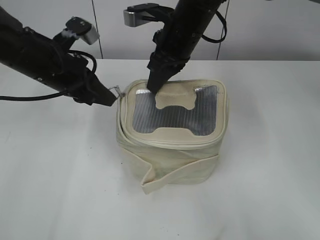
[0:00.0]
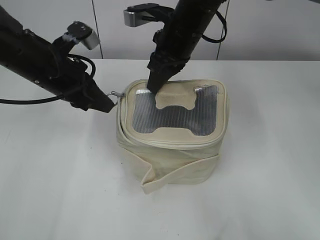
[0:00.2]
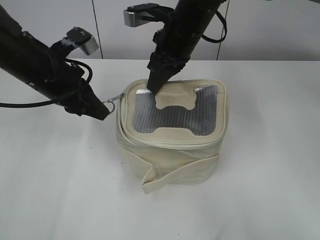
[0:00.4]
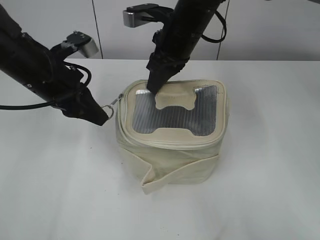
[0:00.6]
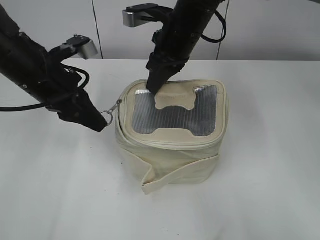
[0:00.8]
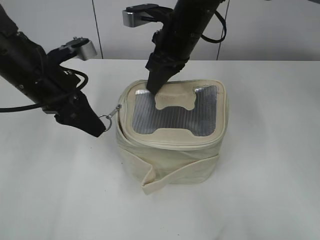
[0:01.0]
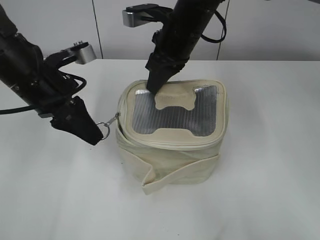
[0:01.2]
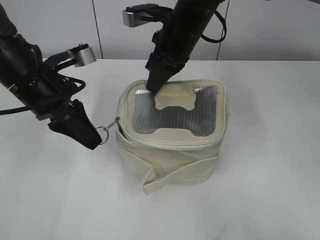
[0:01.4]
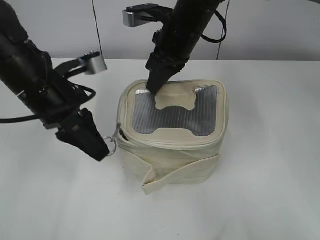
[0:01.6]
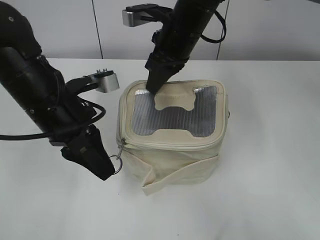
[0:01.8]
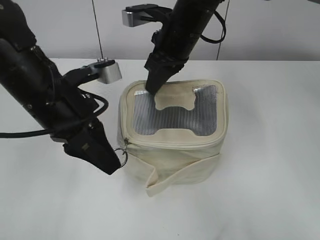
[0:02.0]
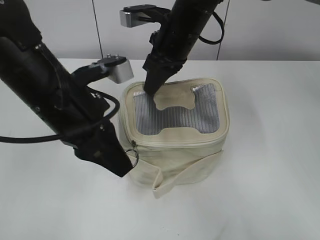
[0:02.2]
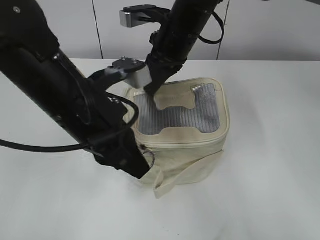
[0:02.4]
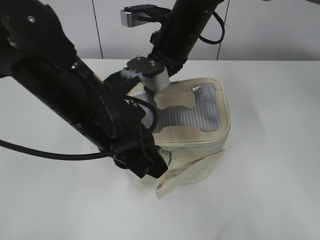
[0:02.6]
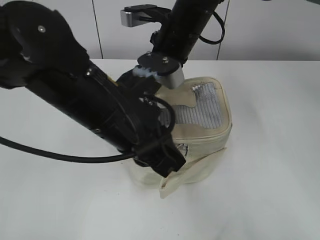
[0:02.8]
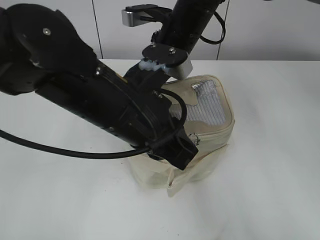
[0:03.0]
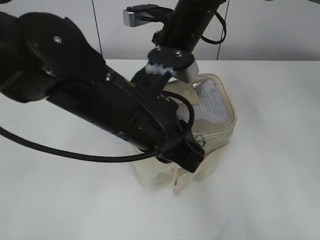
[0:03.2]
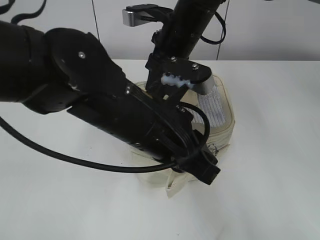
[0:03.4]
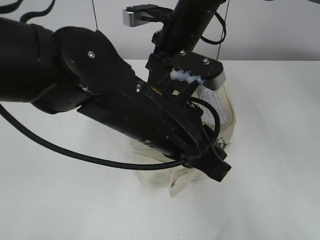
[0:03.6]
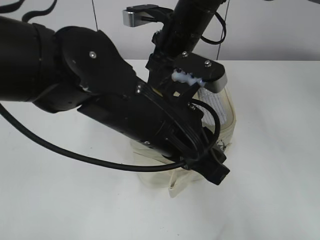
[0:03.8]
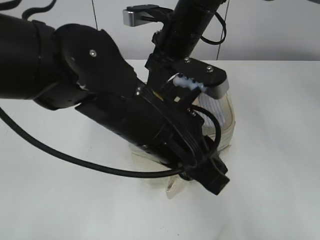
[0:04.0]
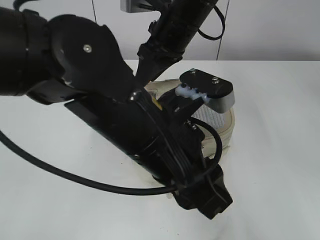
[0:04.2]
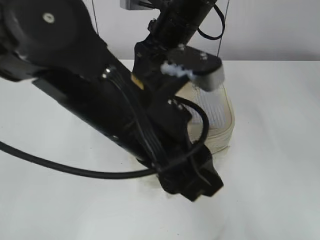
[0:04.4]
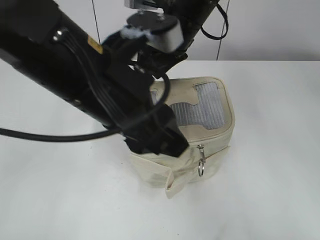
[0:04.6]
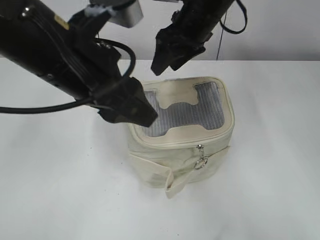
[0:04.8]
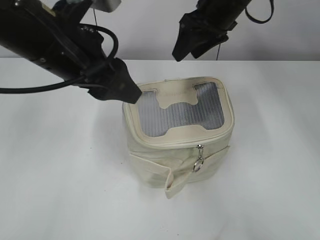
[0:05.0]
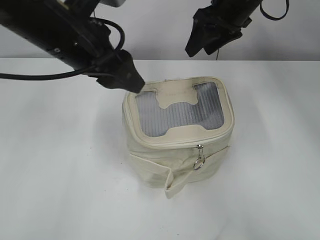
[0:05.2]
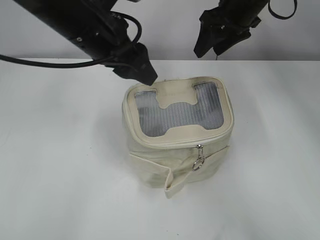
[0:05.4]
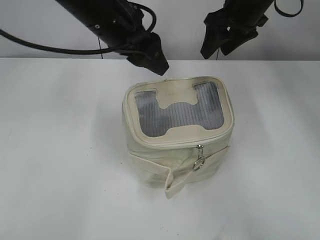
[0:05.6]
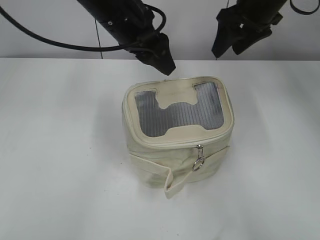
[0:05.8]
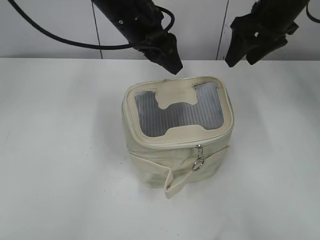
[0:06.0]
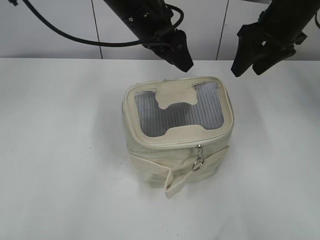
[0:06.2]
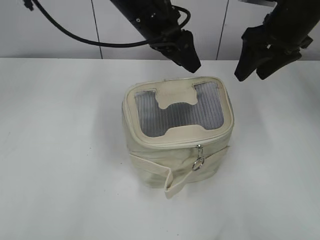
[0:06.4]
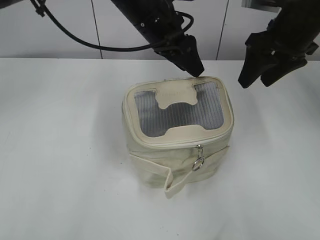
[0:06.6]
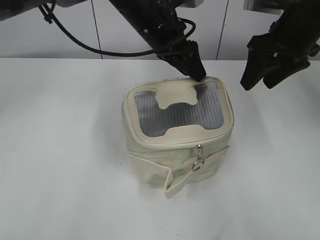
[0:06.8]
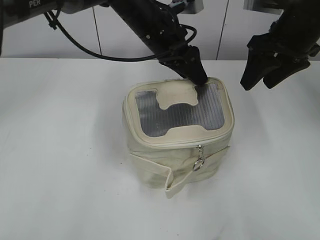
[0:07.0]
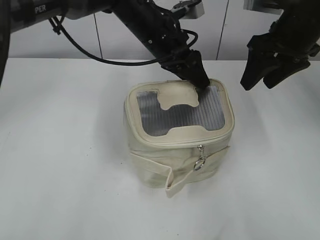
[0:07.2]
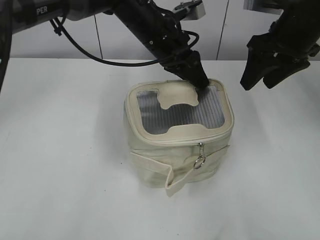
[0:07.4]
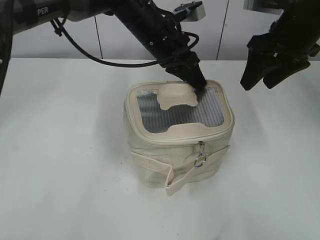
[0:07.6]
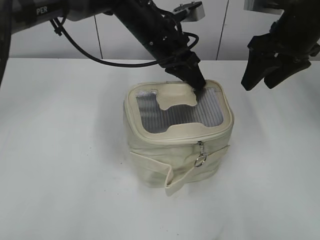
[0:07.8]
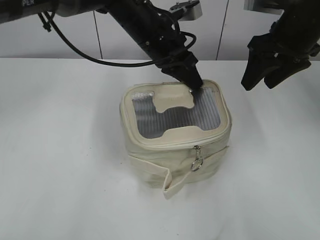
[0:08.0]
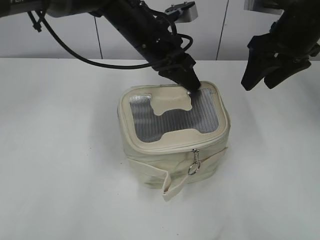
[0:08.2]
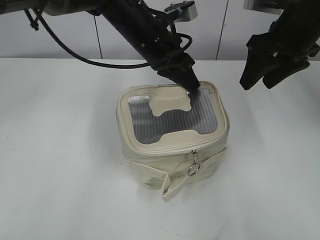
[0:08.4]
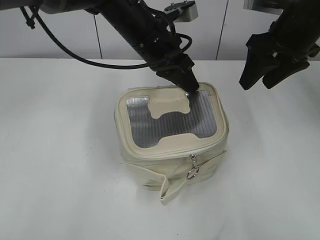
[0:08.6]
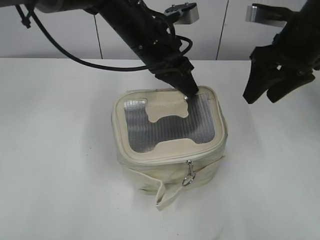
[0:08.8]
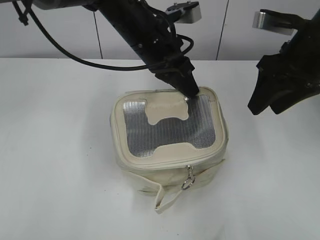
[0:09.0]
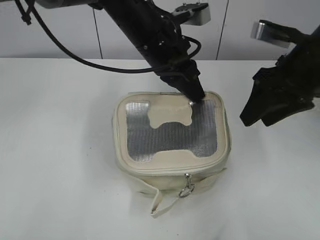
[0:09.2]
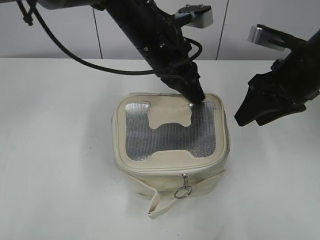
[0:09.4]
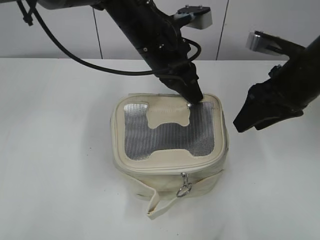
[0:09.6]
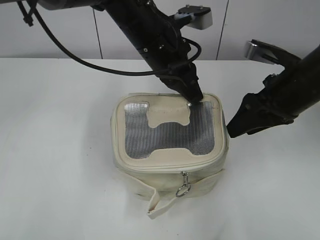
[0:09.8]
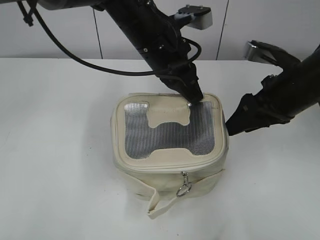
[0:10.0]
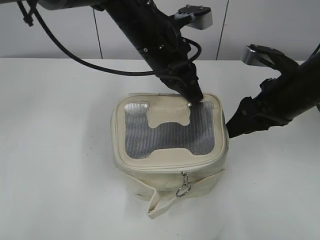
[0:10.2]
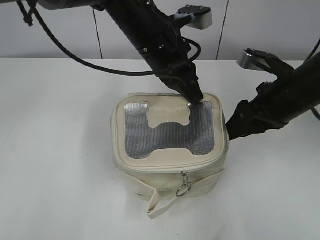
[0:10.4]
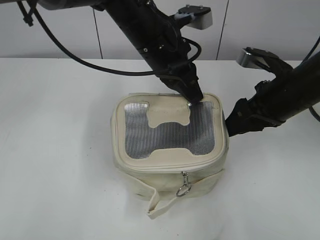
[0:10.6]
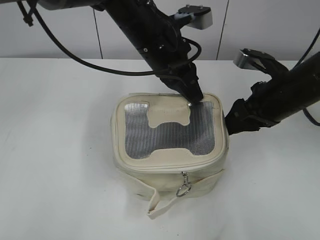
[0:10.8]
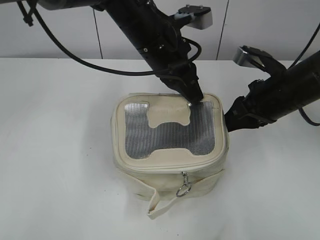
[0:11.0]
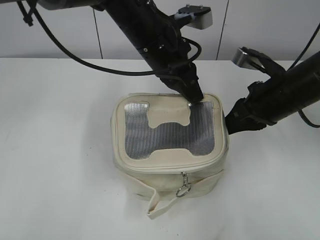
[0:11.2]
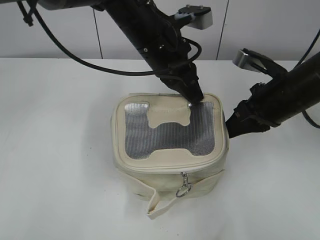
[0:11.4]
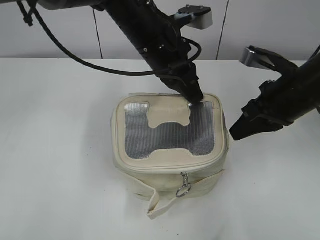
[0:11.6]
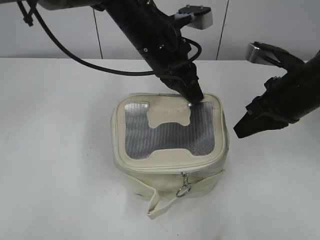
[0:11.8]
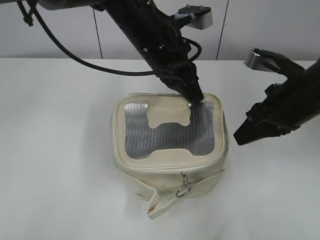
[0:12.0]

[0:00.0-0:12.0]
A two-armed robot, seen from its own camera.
Step, 0:00.0 to 0:04.0: Zip up the bag with your left hand.
0:00.0 to 0:01.6: The left gripper travels backward by some 5 cm.
0:01.6 to 0:03.0: The left gripper travels to the right and backward by some 15 cm.
0:03.0 to 0:04.4: The left gripper opens its fingers. Meanwhile the right gripper opens up.
0:04.4 to 0:06.0: The left gripper is displaced forward by roughly 20 cm; the right gripper shifts some 15 cm to the right.
0:06.0 to 0:07.6: The left gripper travels downward by some 5 cm, and closes up.
0:07.6 to 0:09.0: The left gripper ends up approximately 5 cm from where it was. Meanwhile the right gripper moves approximately 5 cm.
0:09.0 to 0:10.4: The right gripper goes some 5 cm downward.
0:10.4 to 0:12.0: The right gripper closes.

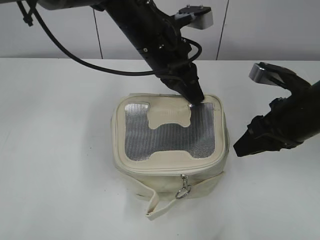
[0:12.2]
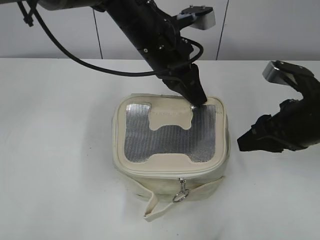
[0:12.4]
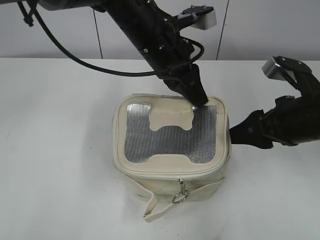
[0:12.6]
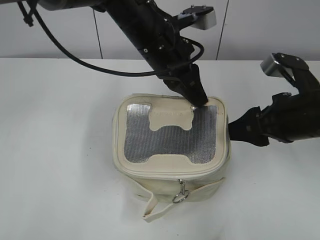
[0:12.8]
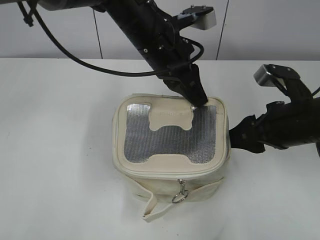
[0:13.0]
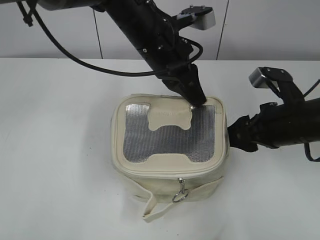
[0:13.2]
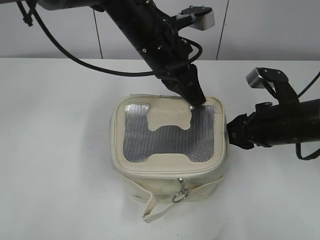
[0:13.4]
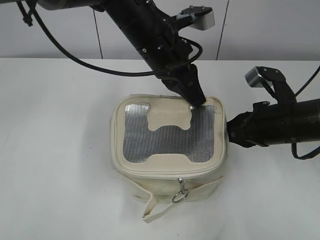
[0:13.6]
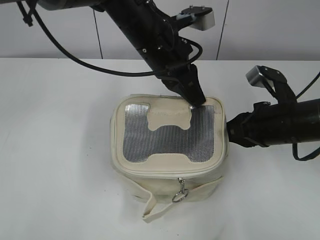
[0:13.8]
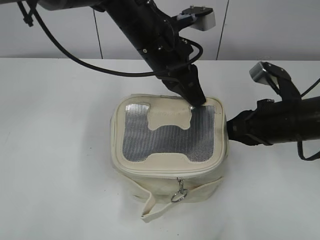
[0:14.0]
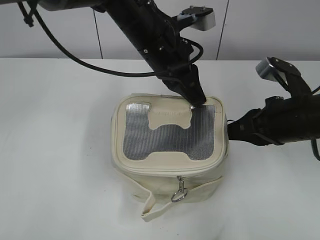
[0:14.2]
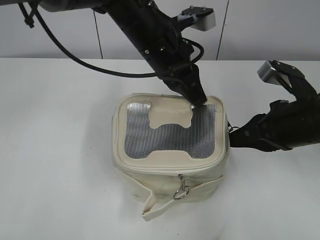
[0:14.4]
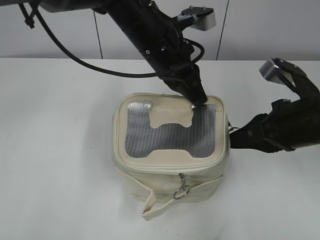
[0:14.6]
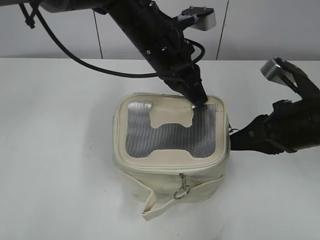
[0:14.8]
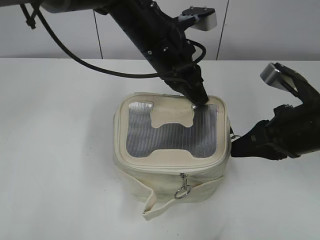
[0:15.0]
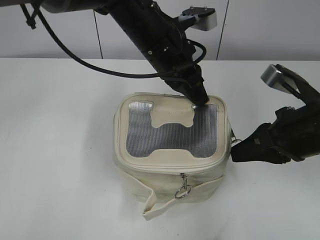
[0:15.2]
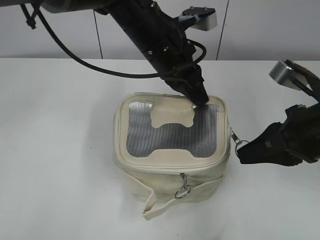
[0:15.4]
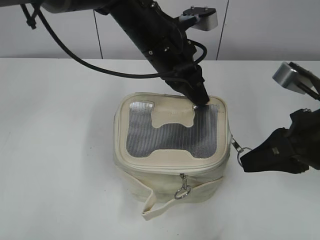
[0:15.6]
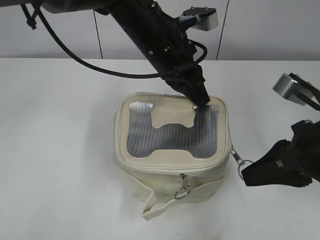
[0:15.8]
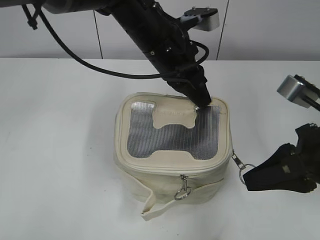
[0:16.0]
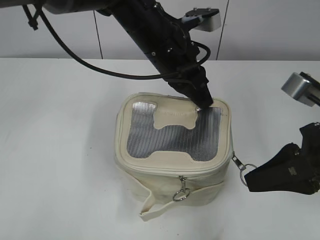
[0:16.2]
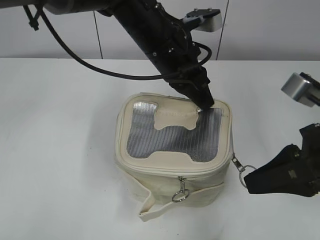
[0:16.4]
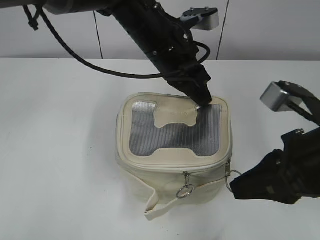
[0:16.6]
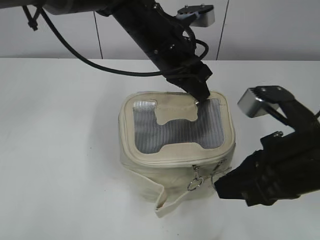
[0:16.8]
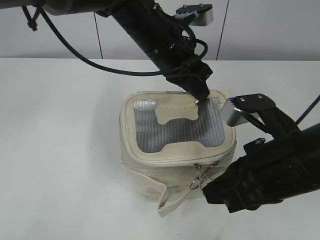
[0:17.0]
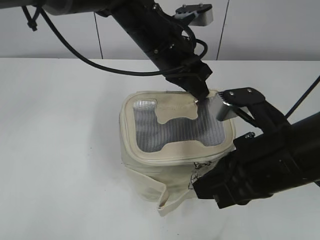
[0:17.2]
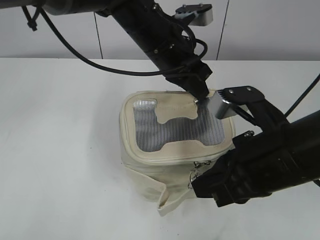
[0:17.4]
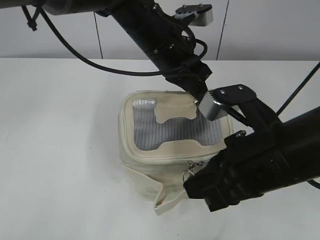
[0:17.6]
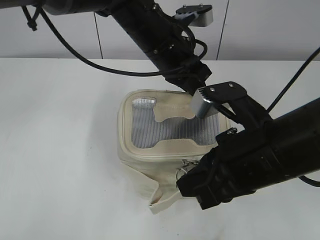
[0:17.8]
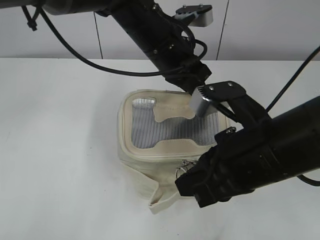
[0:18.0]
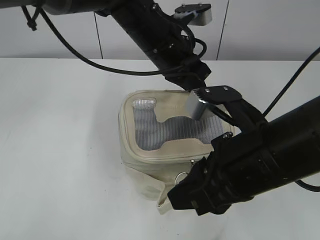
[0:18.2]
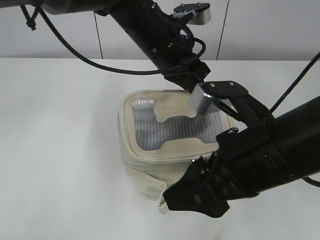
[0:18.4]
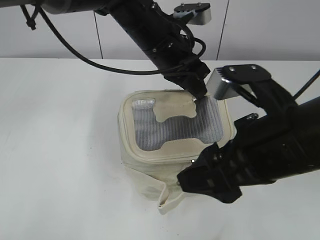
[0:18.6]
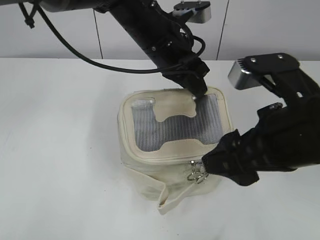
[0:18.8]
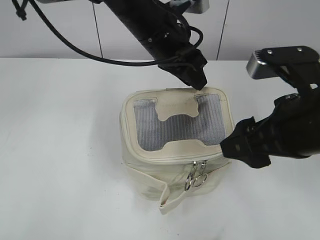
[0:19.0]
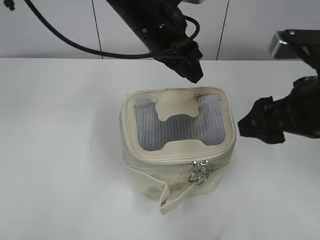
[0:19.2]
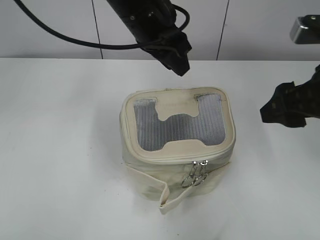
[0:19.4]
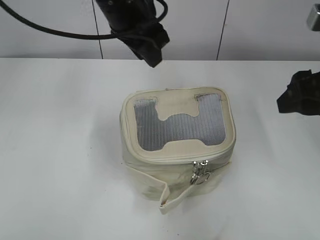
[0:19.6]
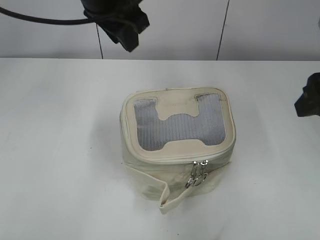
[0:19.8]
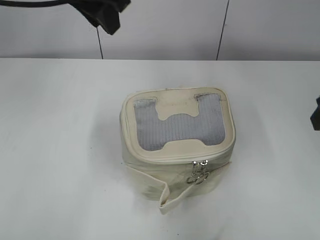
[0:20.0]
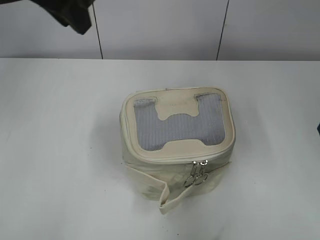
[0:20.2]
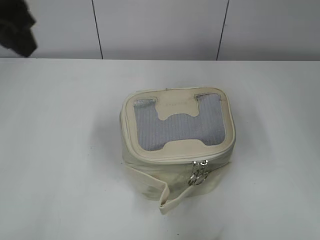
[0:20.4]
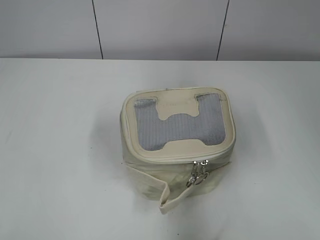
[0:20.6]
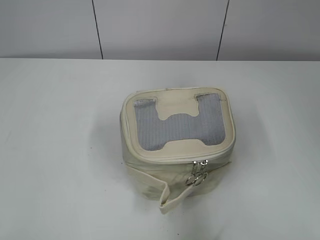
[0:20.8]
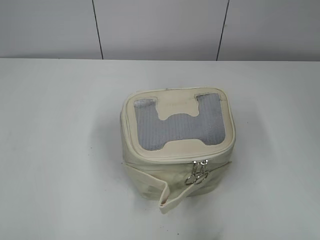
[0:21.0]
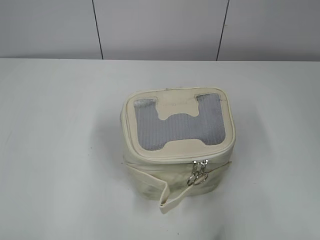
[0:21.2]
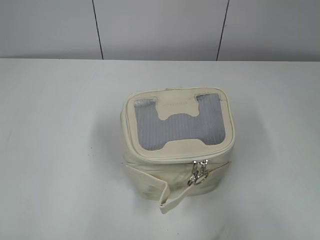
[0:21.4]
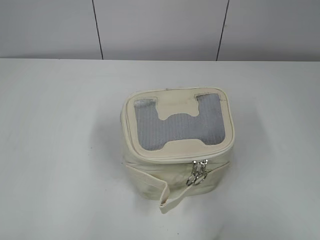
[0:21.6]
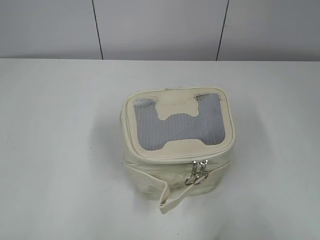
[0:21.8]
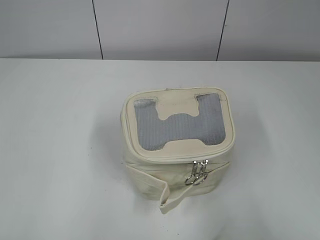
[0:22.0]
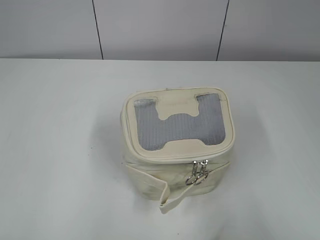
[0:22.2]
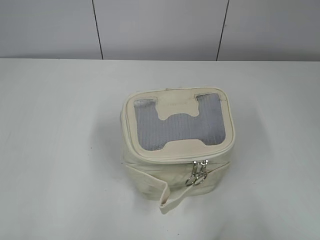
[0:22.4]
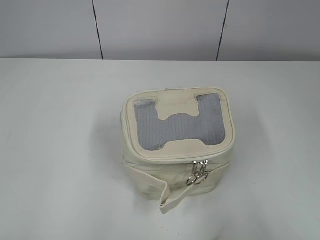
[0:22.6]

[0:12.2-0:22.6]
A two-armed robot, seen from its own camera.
Step, 0:12.2 to 0:18.0: Zip up the bag with your right hand.
Step, 0:18.2 to 0:19.2: Hold the bag with your left hand.
0:12.2 to 0:13.6: The right gripper closes up.
0:13.6 to 0:15.2: The right gripper moves some 5 cm.
0:15.2 to 0:16.6: The right gripper is displaced backward by roughly 5 cm.
0:16.6 to 0:18.2: The right gripper moves to the left, about 5 cm, and opens.
0:18.2 to 0:19.6: The left gripper goes about 10 cm upward and to the left, and opens up, while the right gripper shifts some 15 cm to the right, upward and forward, and opens up.
0:19.6 to 0:21.2: The left gripper heads backward and to the left, covering approximately 40 cm. Meanwhile the right gripper heads backward and to the right, covering approximately 15 cm.
0:21.2 to 0:22.6: The right gripper heads backward, covering about 10 cm.
